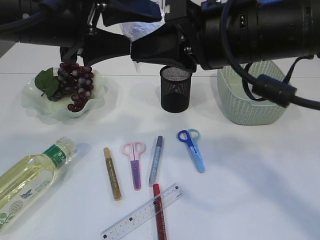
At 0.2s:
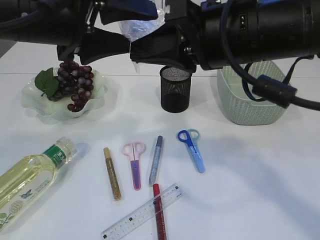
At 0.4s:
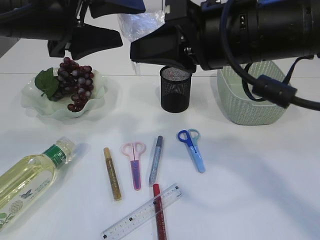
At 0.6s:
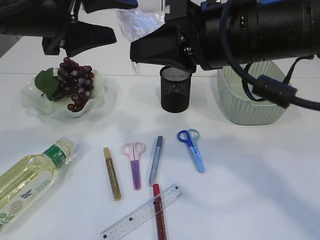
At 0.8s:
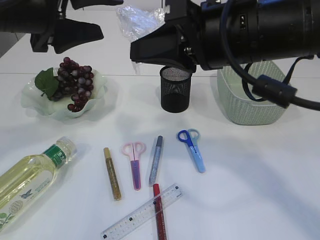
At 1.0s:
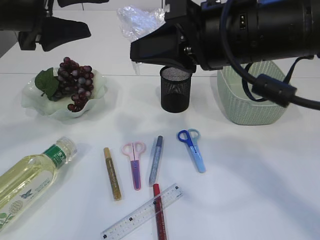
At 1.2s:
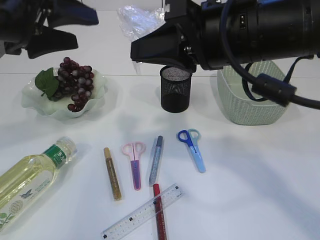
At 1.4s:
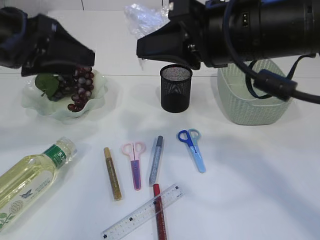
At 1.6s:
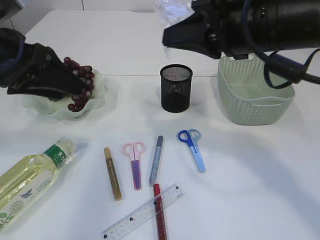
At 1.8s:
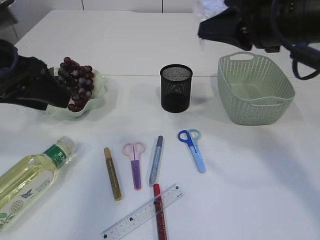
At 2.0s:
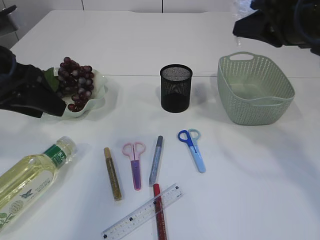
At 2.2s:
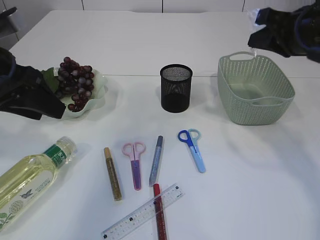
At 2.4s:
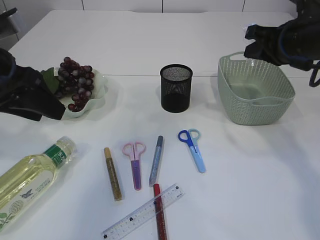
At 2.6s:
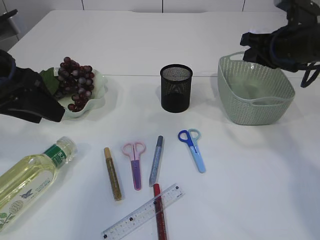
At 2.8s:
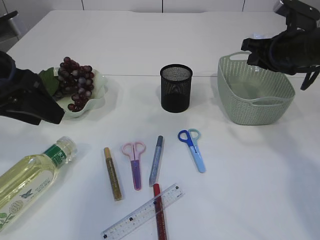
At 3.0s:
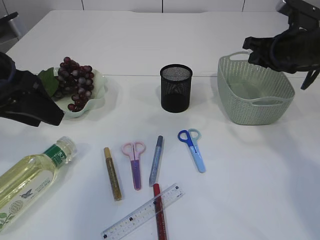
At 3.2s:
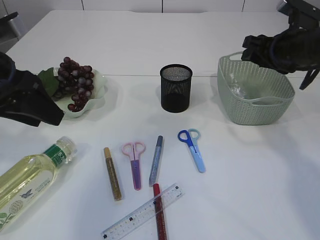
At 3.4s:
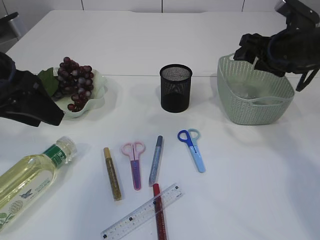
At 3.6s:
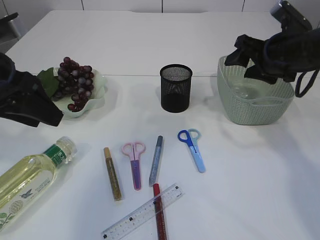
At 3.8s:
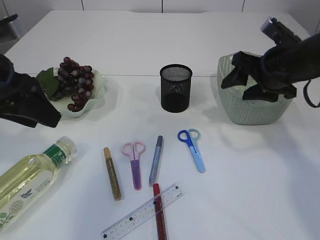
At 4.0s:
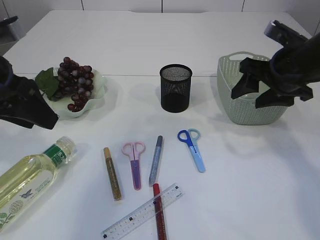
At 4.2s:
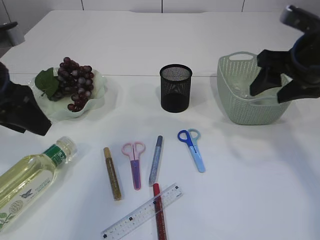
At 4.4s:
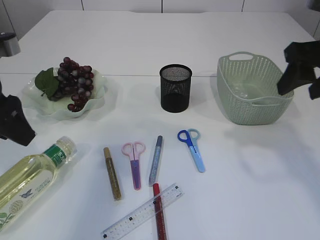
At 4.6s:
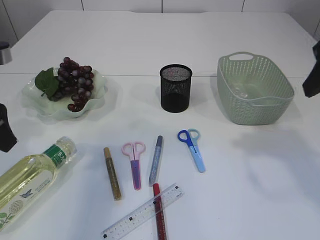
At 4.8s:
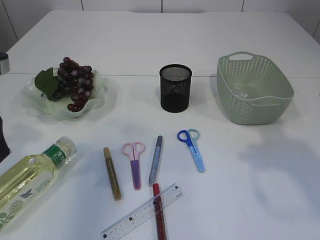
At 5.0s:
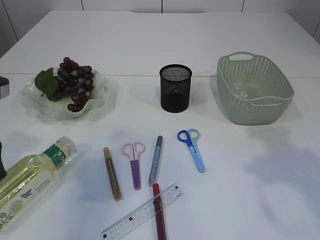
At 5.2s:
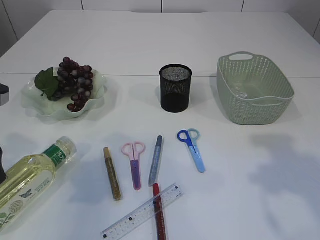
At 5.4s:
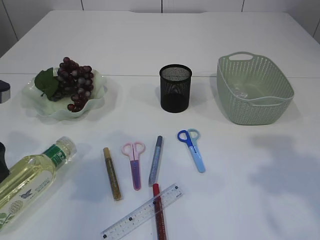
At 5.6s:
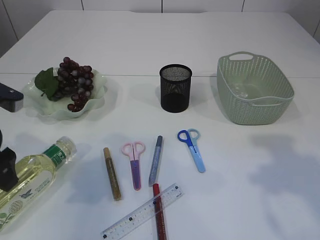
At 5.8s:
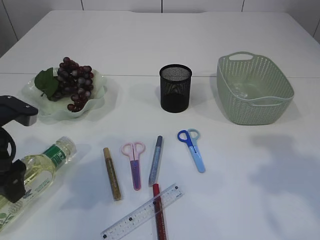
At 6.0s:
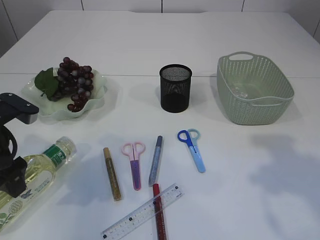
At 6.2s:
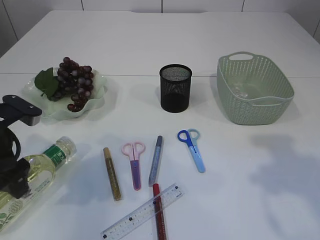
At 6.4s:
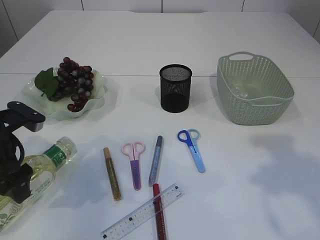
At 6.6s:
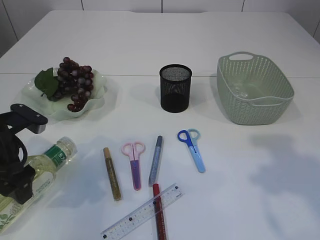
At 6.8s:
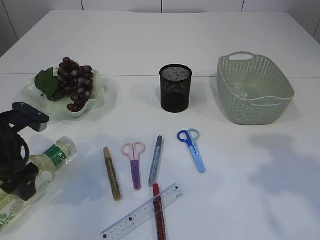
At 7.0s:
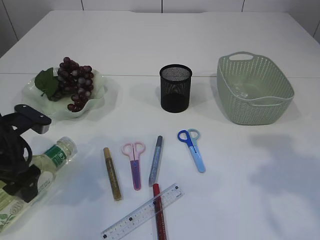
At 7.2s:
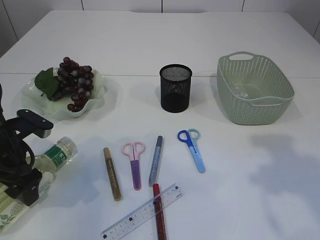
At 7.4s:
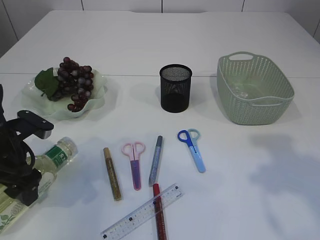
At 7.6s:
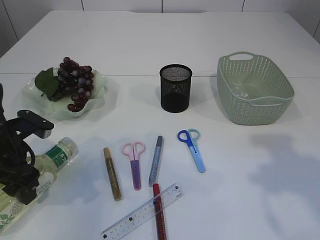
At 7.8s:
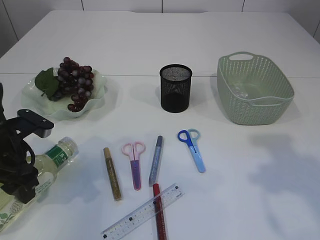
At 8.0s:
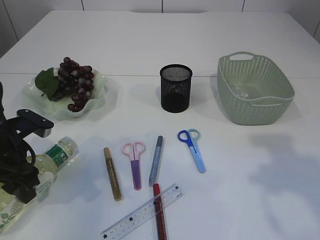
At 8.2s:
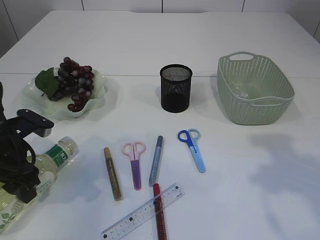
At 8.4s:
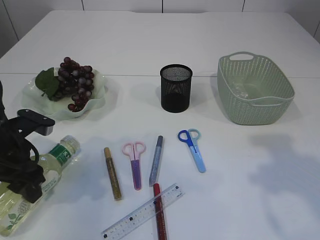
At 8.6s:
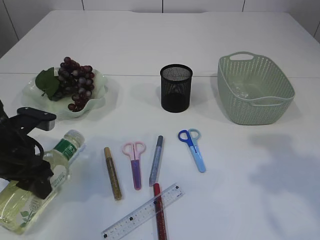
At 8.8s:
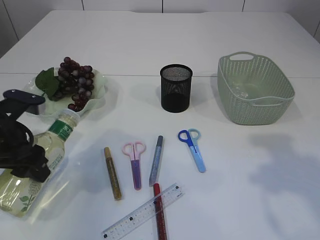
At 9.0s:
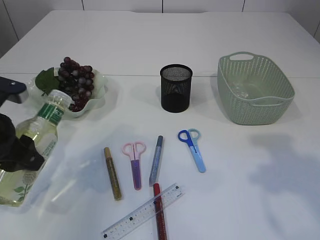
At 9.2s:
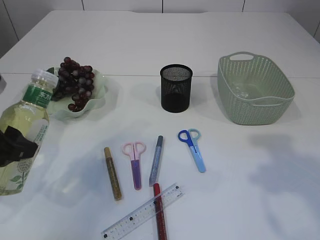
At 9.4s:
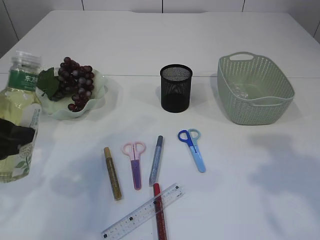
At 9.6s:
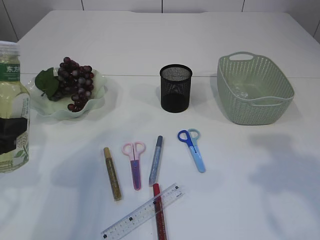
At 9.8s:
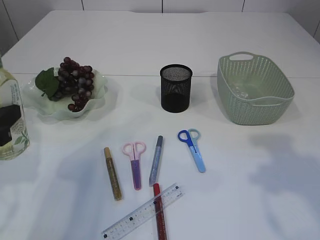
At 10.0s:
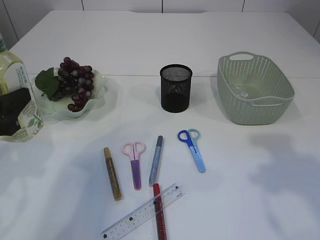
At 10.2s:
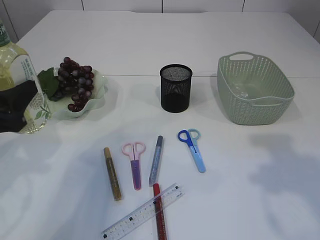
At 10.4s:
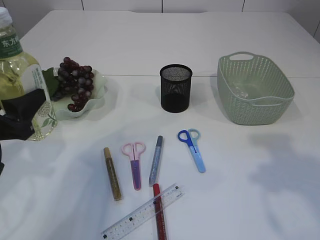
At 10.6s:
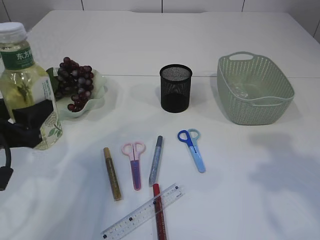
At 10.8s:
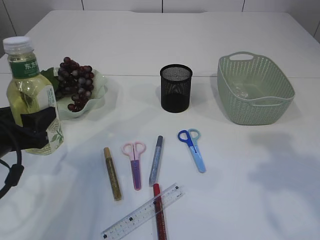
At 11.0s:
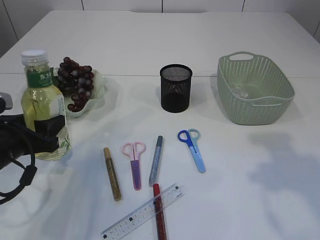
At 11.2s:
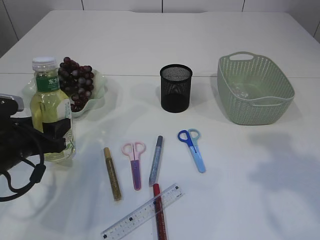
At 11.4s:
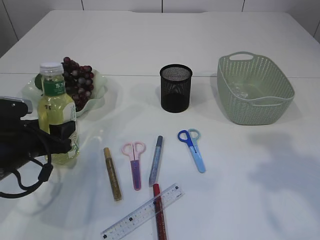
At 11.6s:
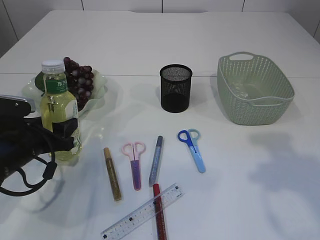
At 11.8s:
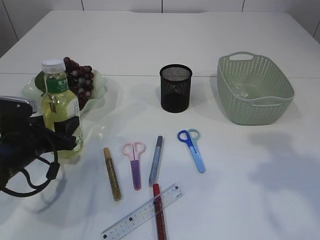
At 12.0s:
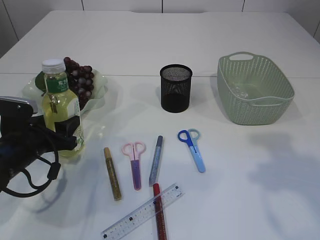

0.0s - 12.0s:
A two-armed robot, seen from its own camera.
Step, 1.4s - 3.4s: Place the plastic in the basket.
Step, 3.6s - 9.0s: Pick up the bottle with the left arm.
0.0s - 1.6s: The left gripper heads to the left, covering roughly 10 cm.
1.6s - 3.0s: The right gripper travels to the right, forward and downward by some 20 cm.
3.0s - 4.4s: The right gripper heads backward and upward, covering approximately 15 cm, and opens.
4.4s - 6.0s: The right gripper is displaced backward by some 10 cm, while the left gripper goes approximately 10 cm downward, and opens its fingers.
6.0s - 7.6s: The left gripper changes place by approximately 5 cm.
7.6s - 9.0s: The left gripper moves upward, roughly 5 cm.
10.4s - 12.0s: The left gripper is displaced downward and forward by about 15 cm.

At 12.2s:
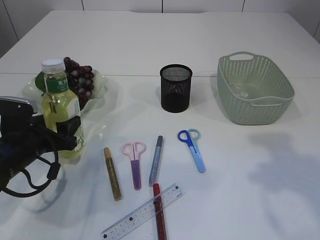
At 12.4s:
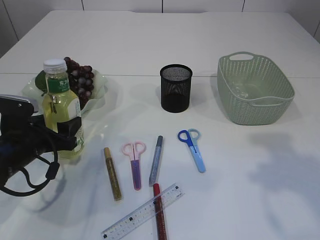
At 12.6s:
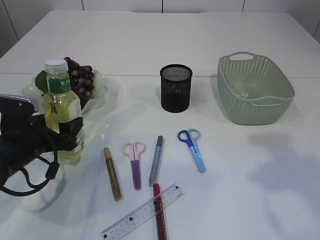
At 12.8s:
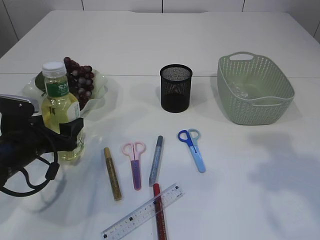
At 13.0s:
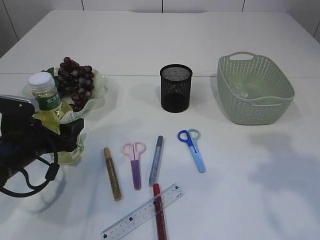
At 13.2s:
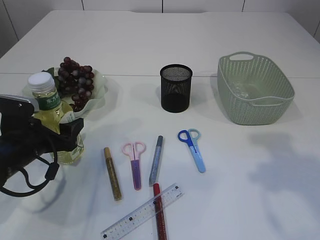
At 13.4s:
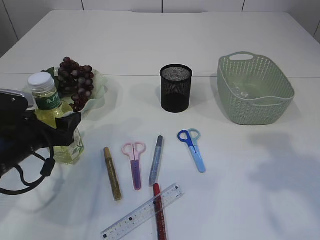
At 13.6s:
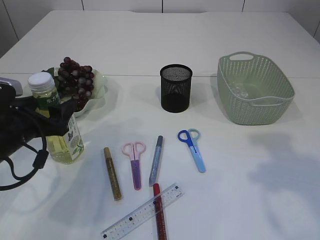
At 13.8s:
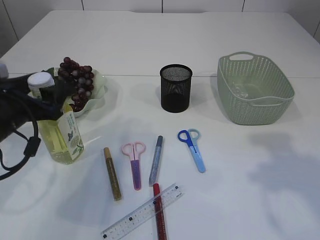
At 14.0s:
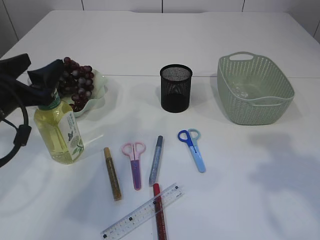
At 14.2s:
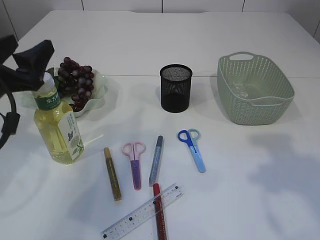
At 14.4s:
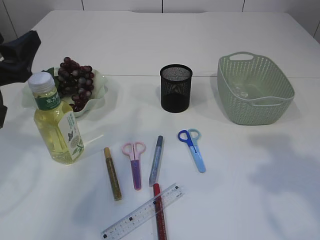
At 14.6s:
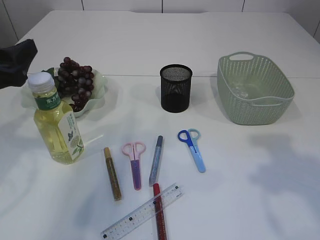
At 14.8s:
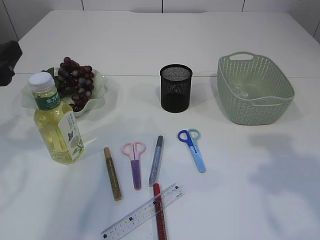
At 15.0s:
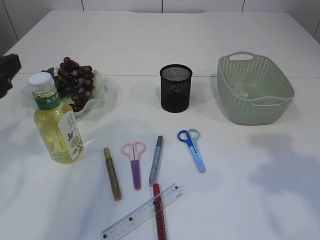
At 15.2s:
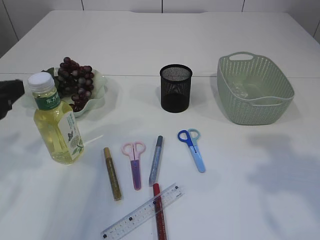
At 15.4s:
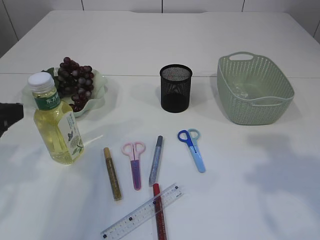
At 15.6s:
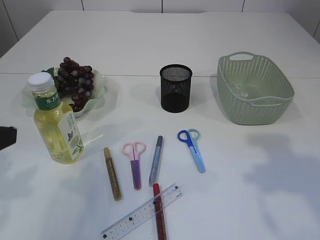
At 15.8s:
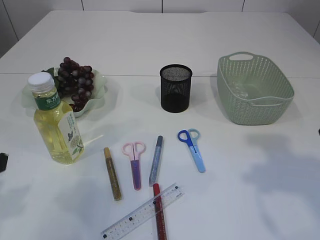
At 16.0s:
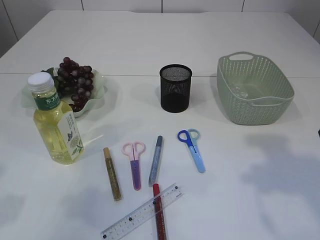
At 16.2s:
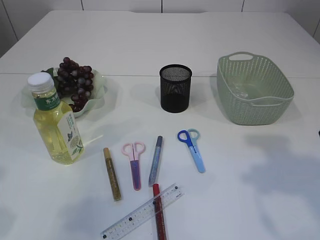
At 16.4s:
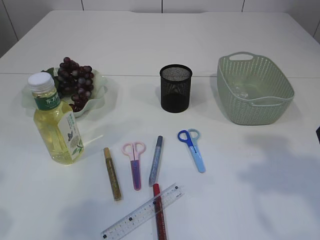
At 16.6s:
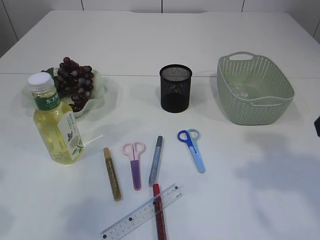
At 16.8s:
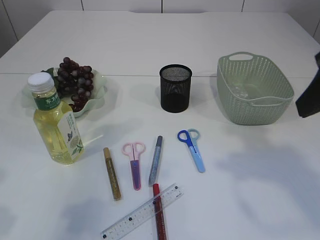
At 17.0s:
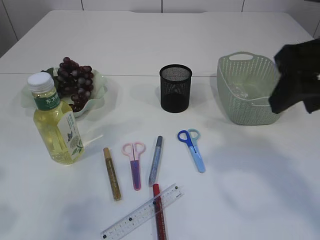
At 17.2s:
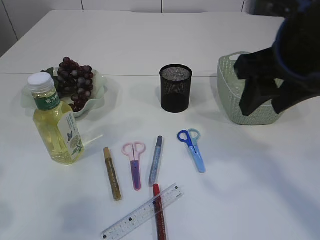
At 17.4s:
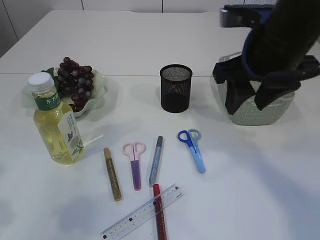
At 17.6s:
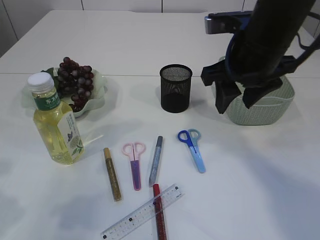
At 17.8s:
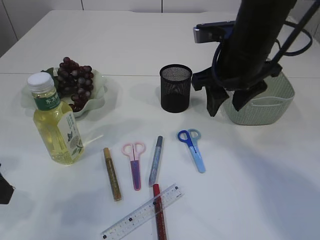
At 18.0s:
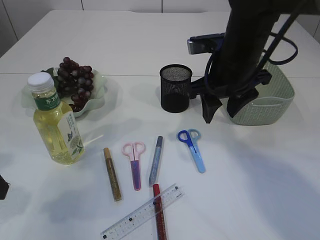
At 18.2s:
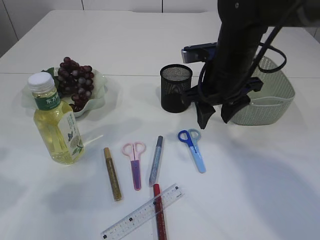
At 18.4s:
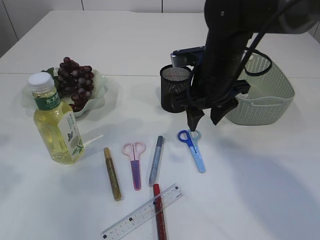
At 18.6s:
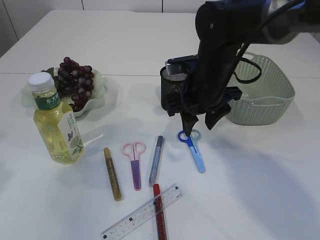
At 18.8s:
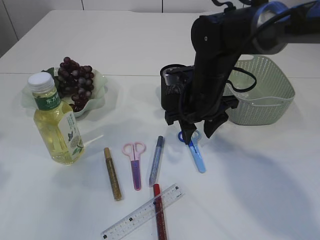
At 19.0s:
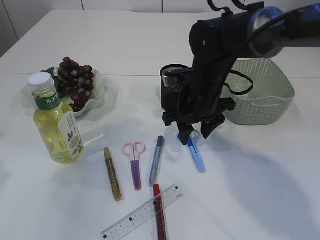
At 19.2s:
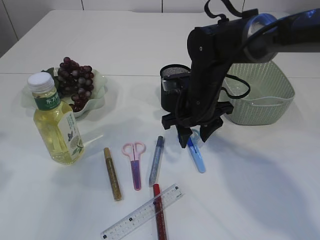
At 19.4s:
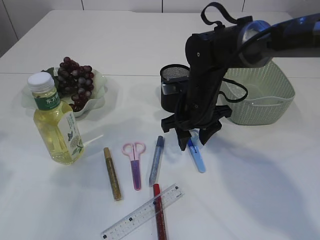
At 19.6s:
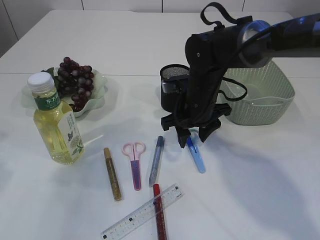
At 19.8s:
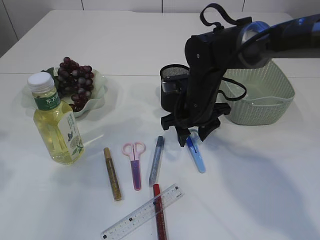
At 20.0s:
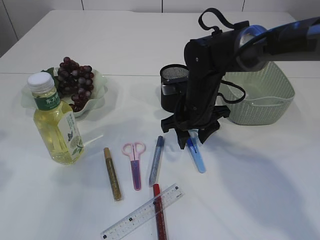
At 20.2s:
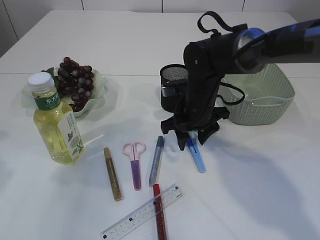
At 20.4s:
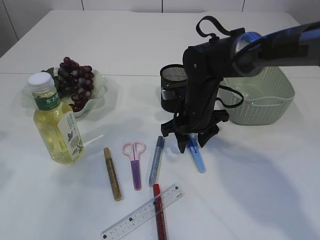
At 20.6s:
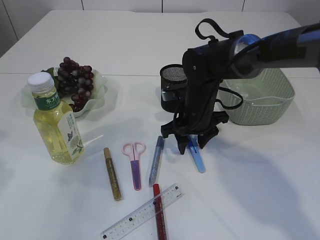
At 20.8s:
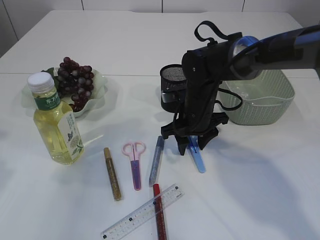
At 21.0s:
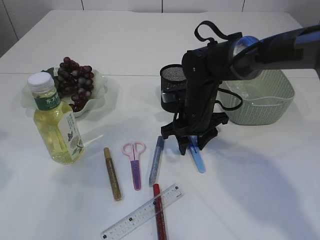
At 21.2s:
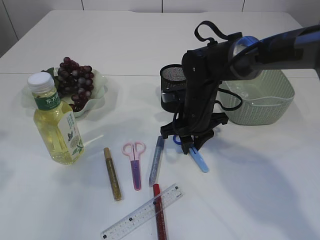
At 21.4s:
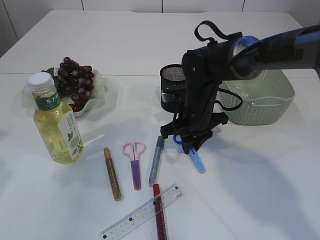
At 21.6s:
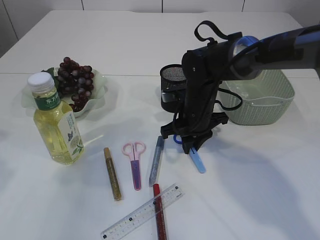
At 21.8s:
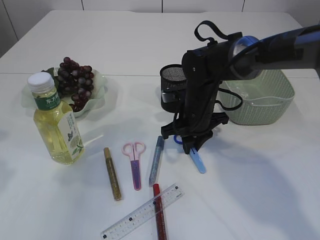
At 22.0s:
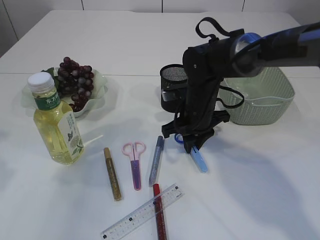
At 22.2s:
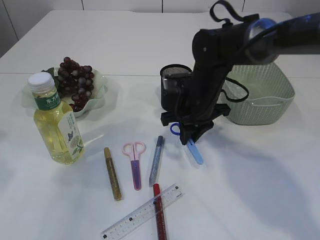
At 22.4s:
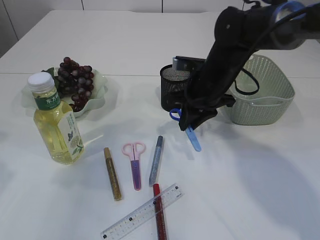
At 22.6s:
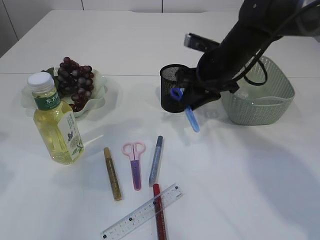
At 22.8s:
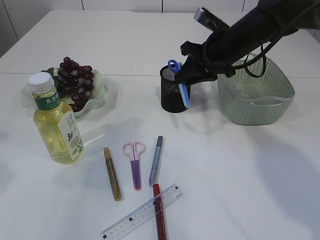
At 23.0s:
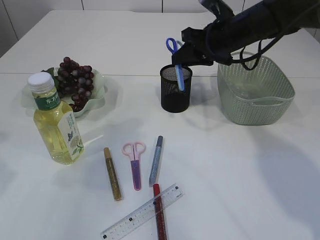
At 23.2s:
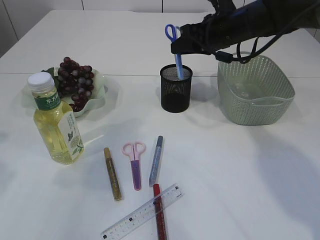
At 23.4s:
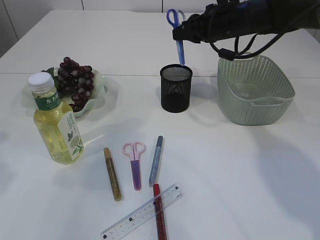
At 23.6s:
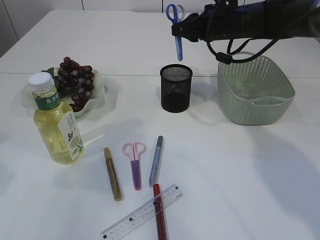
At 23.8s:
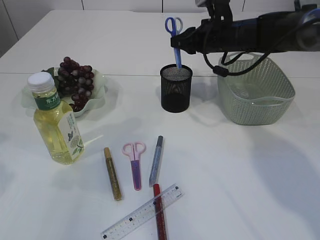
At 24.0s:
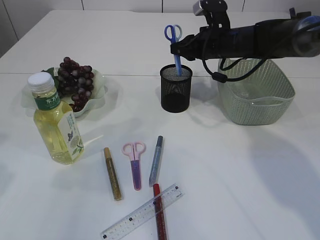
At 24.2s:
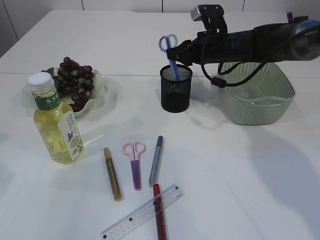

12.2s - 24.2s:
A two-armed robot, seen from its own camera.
Step, 12.2s - 14.6s: Place the bottle.
Step, 14.8s - 22.2s: pick up the blue scissors.
12.2s - 13.8s: The left gripper goes some 10 cm upward.
13.8s - 15.2s: The left gripper is displaced upward and backward by some 10 cm.
15.2s - 16.6s: The left gripper goes some 10 cm backward.
16.6s - 18.2s: The left gripper is displaced forward by about 5 cm. Meanwhile the right gripper goes roughly 25 cm forward, to the left and downward.
18.2s - 19.8s: The right gripper is displaced downward by about 10 cm. Meanwhile the left gripper changes place by about 5 cm.
19.8s - 21.2s: The grippers move only a little.
21.2s - 22.6s: The right gripper goes some 10 cm upward.
22.6s - 24.2s: The right gripper travels forward by about 10 cm.
